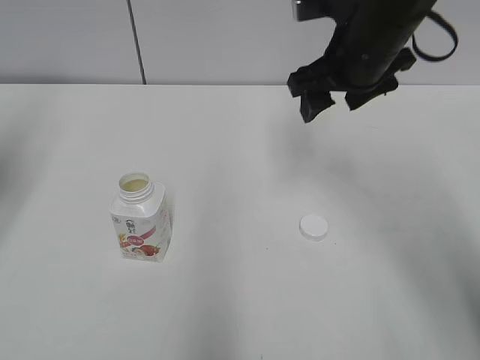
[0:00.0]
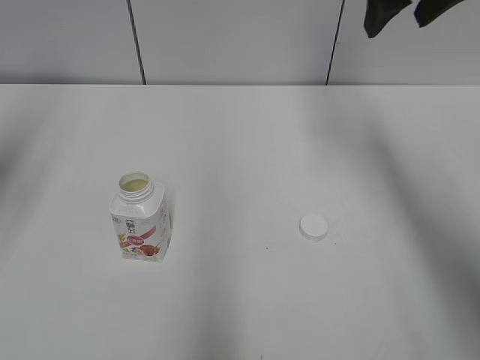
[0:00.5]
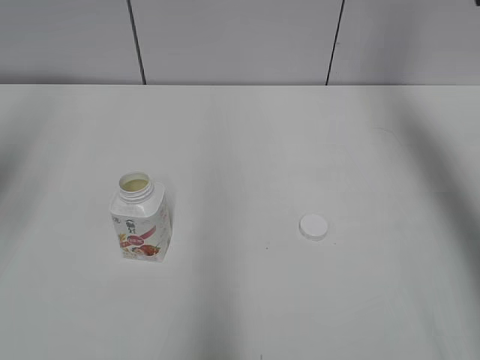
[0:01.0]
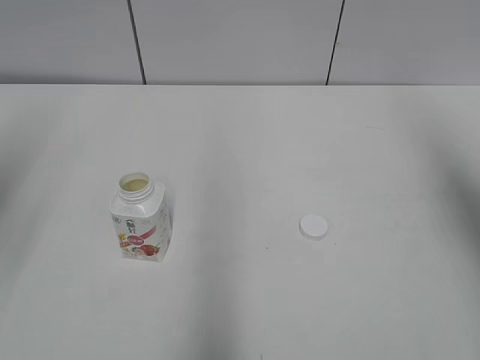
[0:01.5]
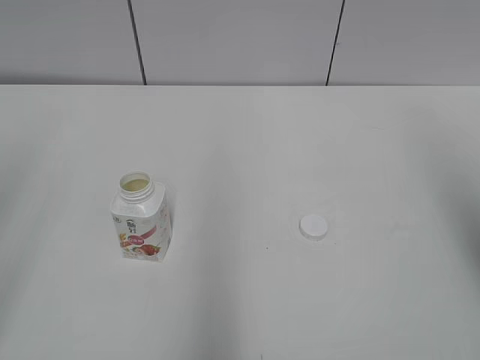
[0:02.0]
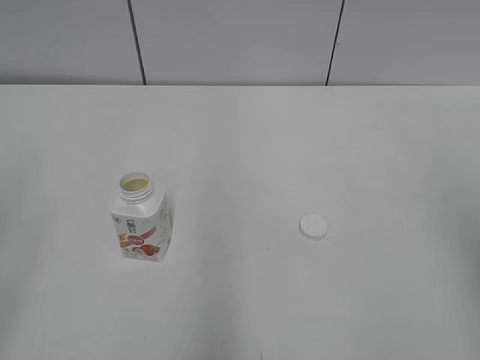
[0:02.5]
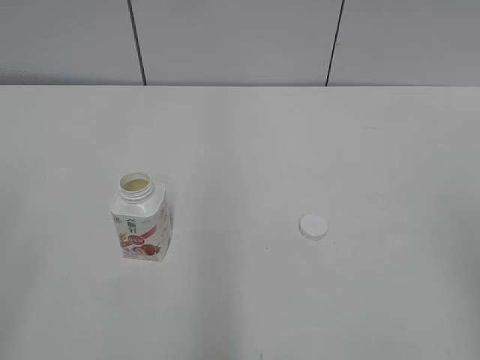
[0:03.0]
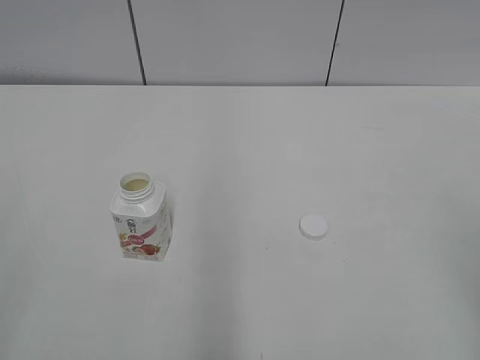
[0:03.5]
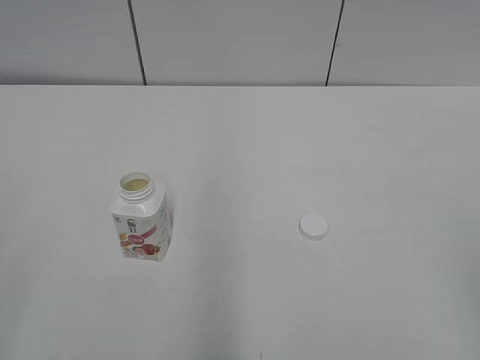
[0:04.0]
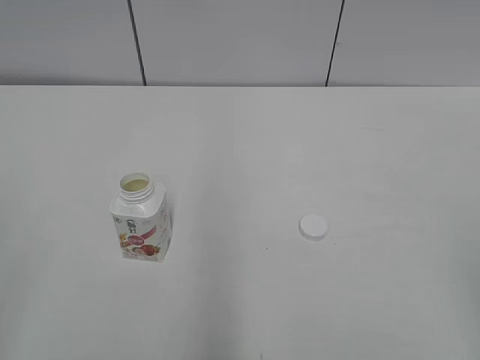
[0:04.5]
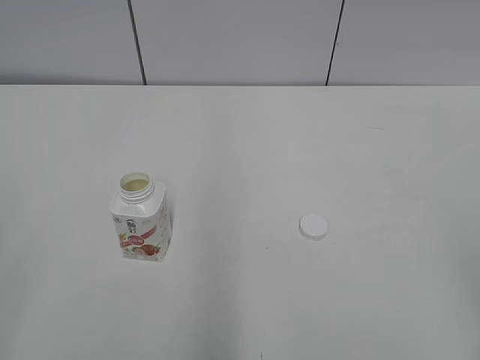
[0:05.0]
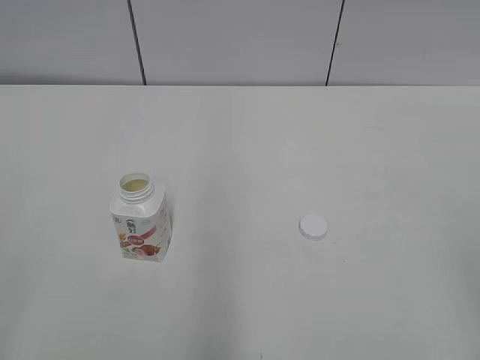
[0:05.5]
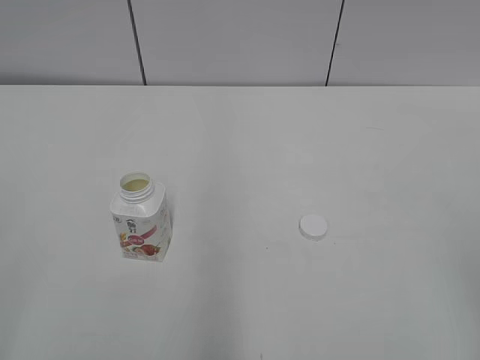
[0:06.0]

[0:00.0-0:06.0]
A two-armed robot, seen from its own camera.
0:00.0 to 0:02.0: The left gripper is displaced backward by about 15 cm. Meanwhile the right gripper heads backward, to the right and upward, covering roughly 30 cm.
